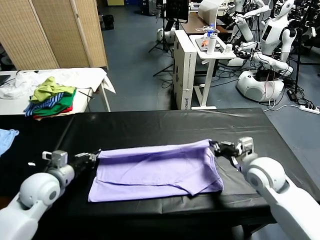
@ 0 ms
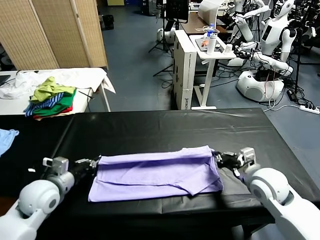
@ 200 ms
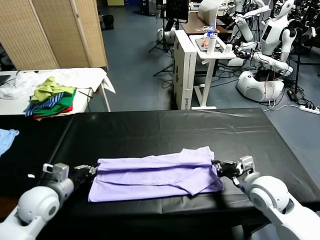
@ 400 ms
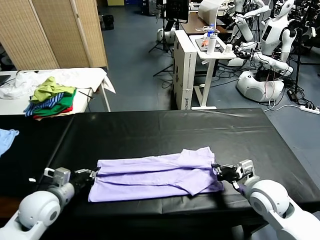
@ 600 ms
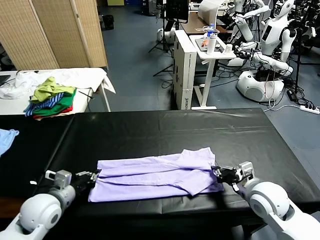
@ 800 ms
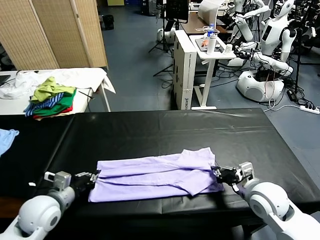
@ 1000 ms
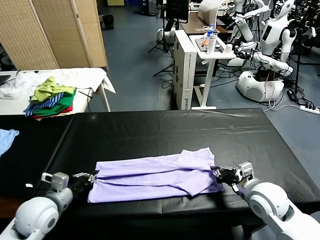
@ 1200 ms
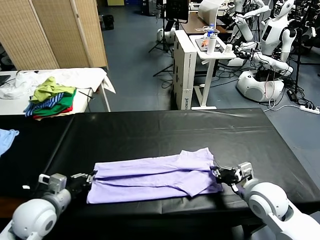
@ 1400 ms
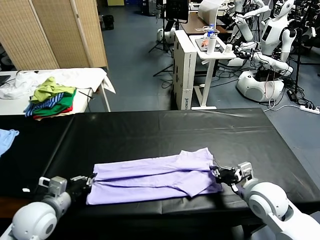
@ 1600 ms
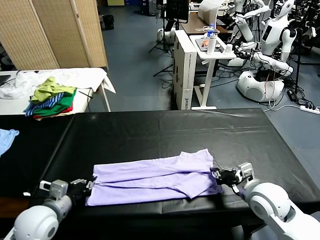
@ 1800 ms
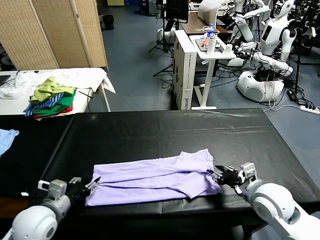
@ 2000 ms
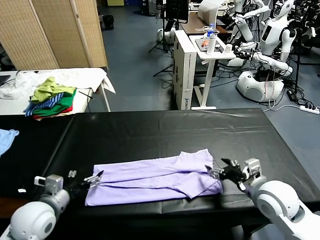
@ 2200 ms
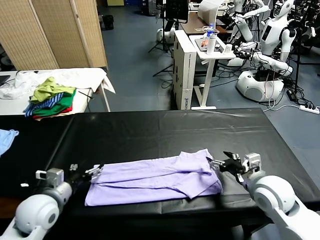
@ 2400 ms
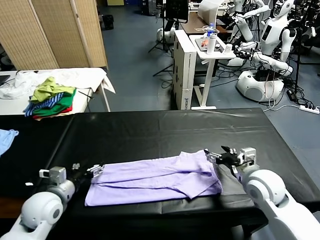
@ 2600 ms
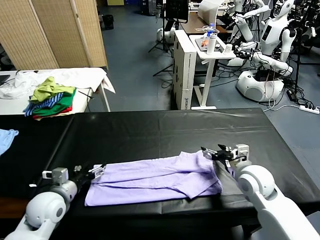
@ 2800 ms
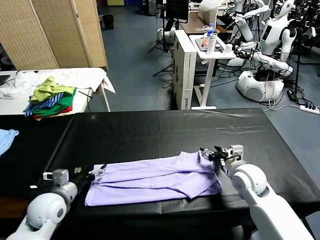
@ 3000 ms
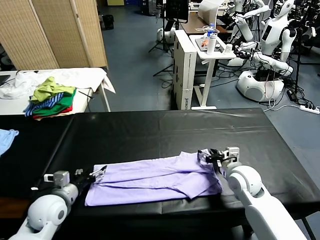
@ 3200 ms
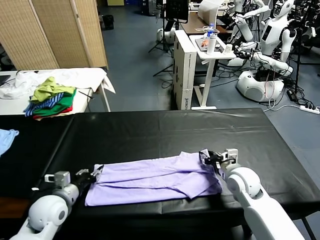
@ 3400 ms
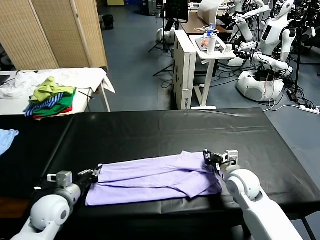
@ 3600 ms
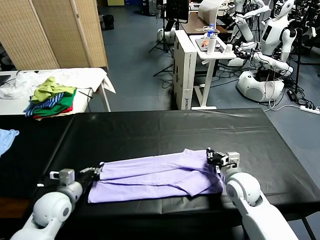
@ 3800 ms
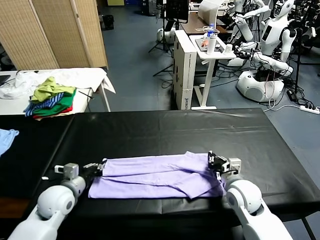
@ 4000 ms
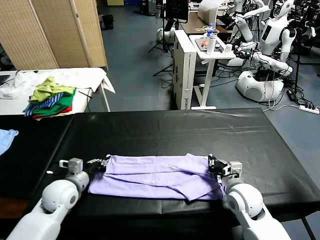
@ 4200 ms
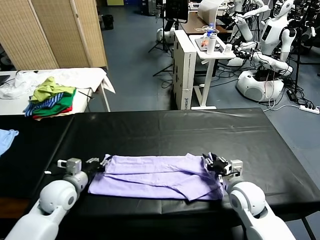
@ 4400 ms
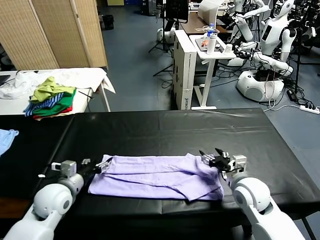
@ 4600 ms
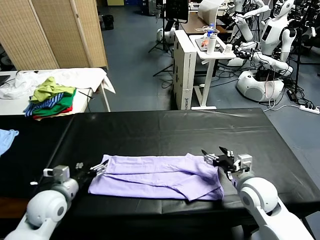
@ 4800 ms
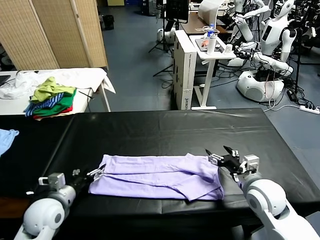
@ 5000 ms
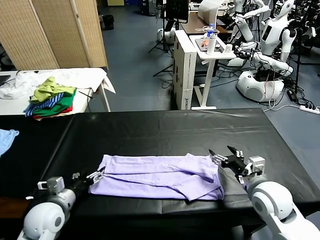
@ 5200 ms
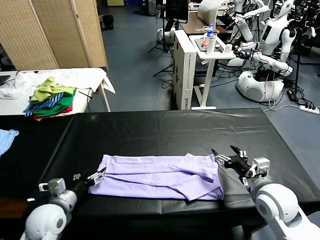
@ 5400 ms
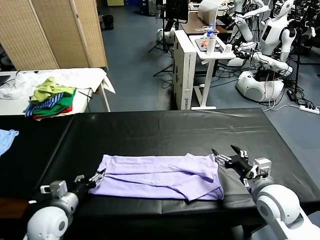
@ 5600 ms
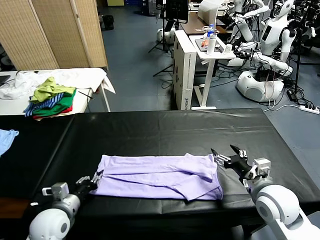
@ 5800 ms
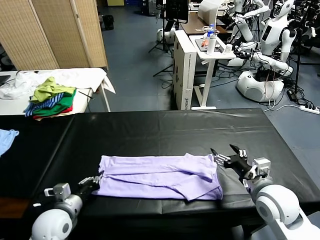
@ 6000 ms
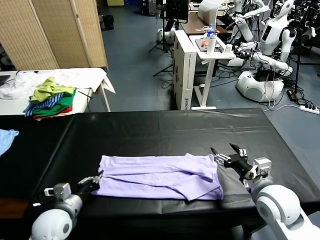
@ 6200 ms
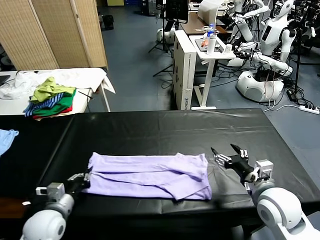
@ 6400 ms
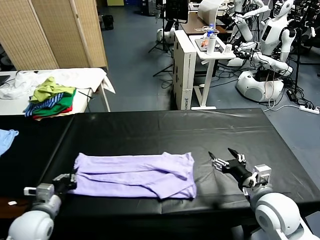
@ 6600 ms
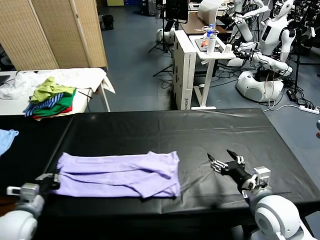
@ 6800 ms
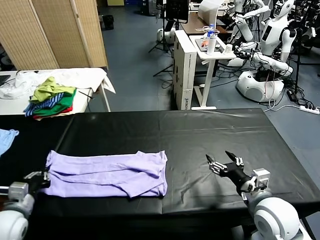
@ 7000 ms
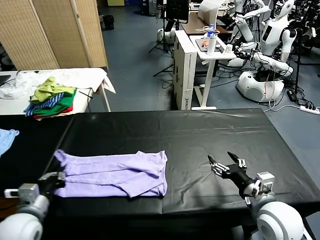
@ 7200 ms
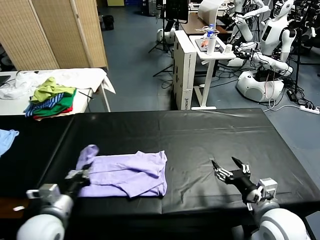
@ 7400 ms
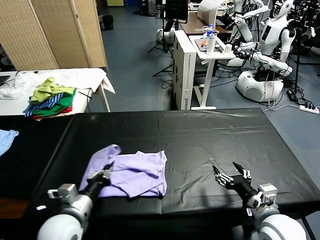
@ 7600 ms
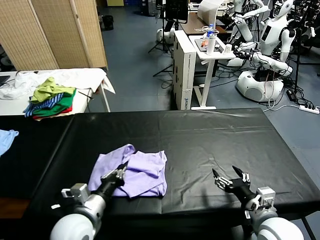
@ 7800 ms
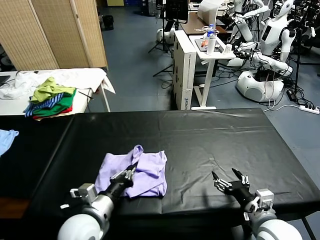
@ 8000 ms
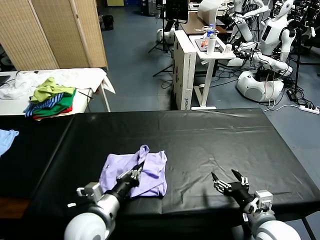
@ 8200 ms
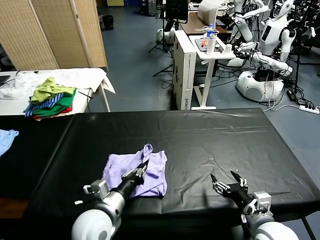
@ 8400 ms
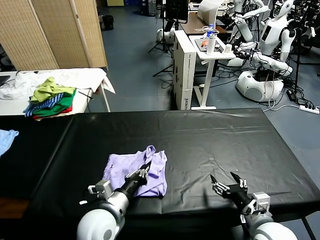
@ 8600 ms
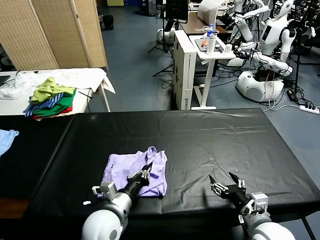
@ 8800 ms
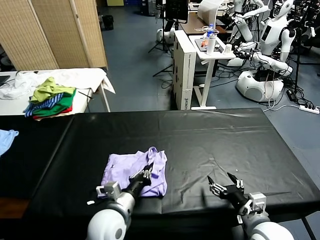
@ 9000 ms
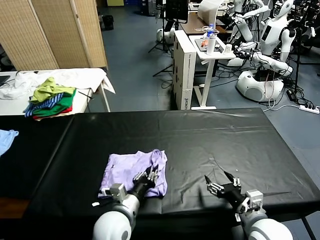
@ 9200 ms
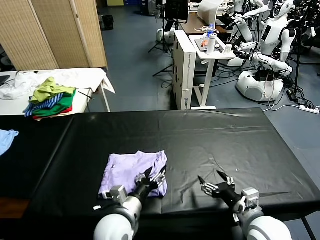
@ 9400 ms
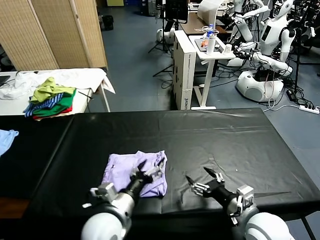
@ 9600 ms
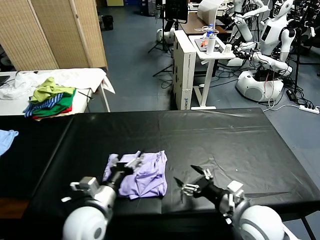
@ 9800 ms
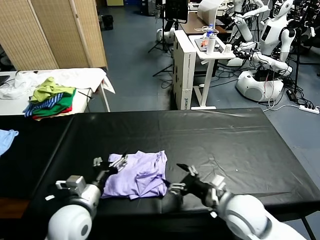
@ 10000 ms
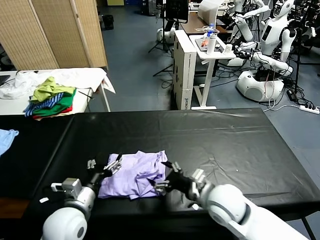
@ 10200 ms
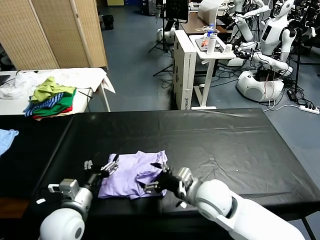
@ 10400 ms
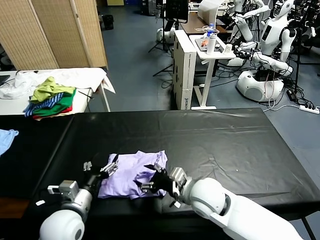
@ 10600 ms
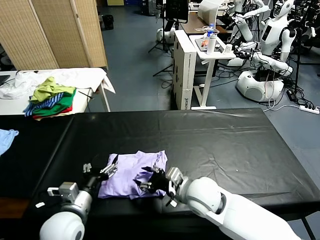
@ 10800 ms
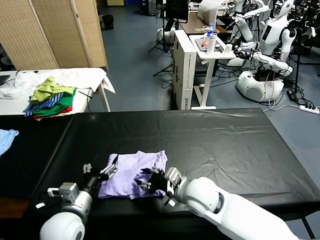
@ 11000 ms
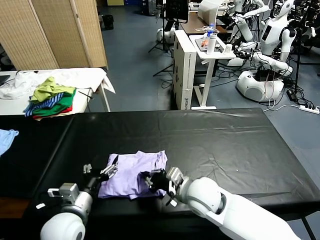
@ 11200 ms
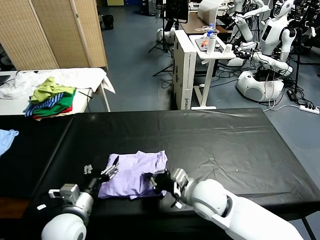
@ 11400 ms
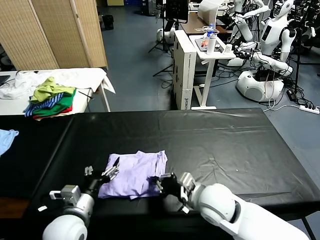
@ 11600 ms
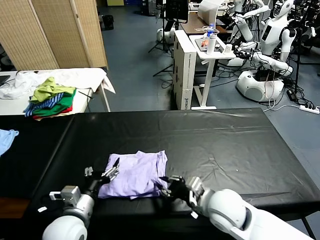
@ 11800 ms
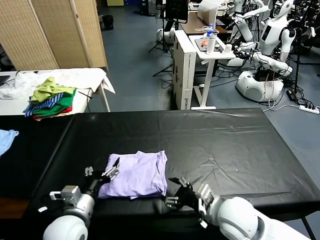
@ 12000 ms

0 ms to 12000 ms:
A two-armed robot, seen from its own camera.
Task of the whole recording: fold and organize the clothes.
Step, 0 ms to 2000 ms: use both grippers to drag the upper edge of the fabric backward and fold it over the lower edge.
Step, 2200 ms to 6000 ms: use the left gripper to clamp the left edge of the fabric.
Step, 6200 ms to 9400 ms: use the left gripper to drag the left edge of the fabric to the left and folds it over the right edge.
0 ms to 1600 ms: The left gripper heads backward, covering about 5 cm.
1600 ms to 3000 ms: The left gripper ends up about 5 cm from where it was, and opens its fingers. The right gripper is displaced forward by roughly 10 cm, and opens its fingers.
3000 ms to 4400 ms: The left gripper closes up; the right gripper closes, then reopens.
4400 ms to 6000 ms: The right gripper is displaced upward by approximately 5 cm. Meanwhile the left gripper shifts about 5 cm backward, and closes.
6000 ms to 7600 ms: The right gripper shifts roughly 5 cm backward. Meanwhile the left gripper moves to the right and upward, approximately 10 cm.
7600 ms to 9000 ms: The left gripper goes about 10 cm to the right.
9000 ms to 10400 ms: The left gripper goes some 10 cm to the left, and opens its fingers, while the right gripper shifts approximately 15 cm to the left and forward.
10400 ms to 12000 ms: The right gripper goes approximately 10 cm to the right and backward, and closes, then opens again.

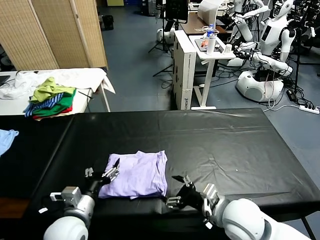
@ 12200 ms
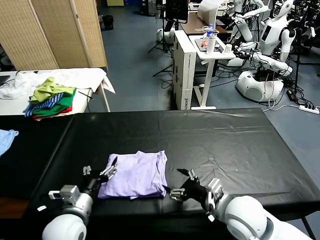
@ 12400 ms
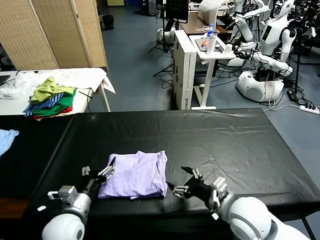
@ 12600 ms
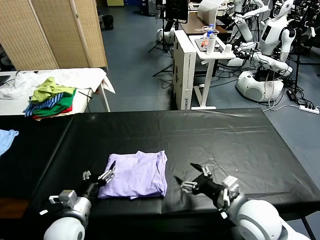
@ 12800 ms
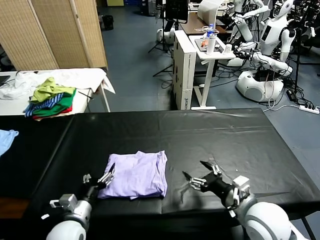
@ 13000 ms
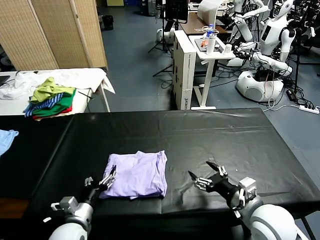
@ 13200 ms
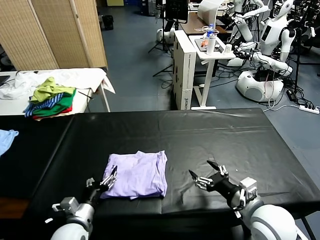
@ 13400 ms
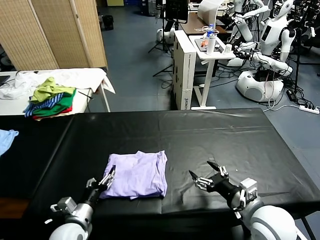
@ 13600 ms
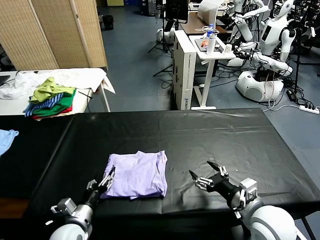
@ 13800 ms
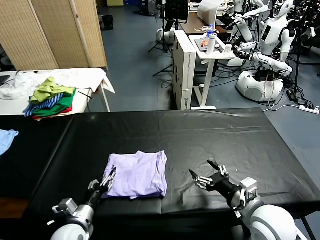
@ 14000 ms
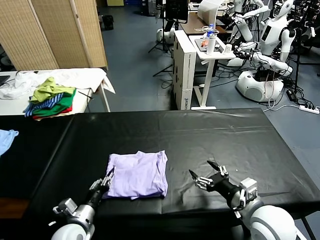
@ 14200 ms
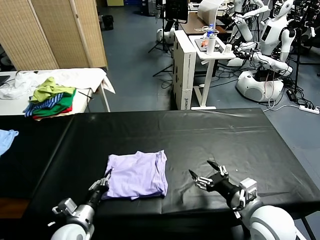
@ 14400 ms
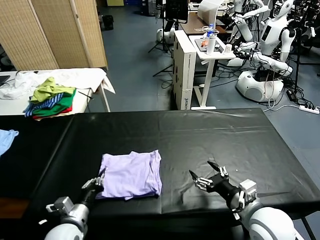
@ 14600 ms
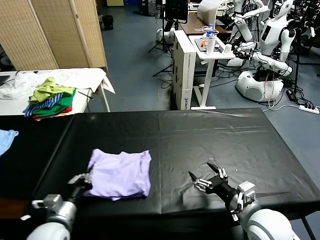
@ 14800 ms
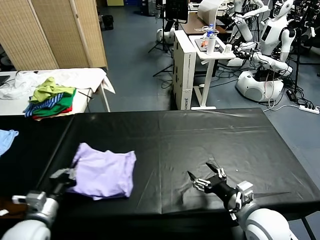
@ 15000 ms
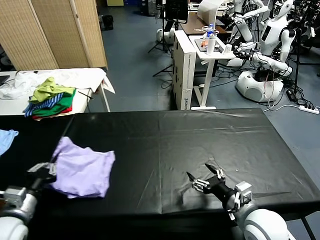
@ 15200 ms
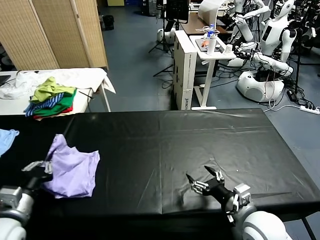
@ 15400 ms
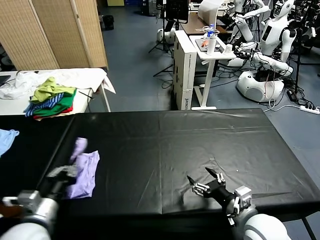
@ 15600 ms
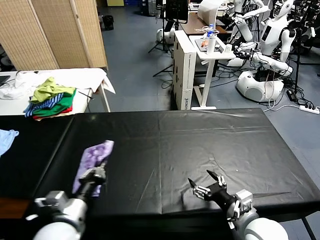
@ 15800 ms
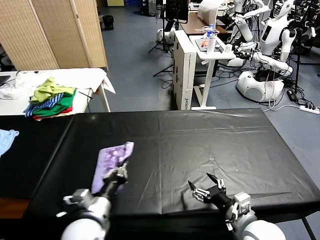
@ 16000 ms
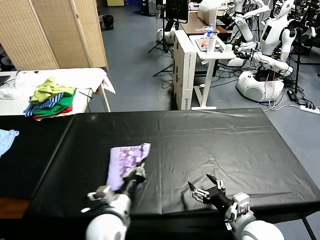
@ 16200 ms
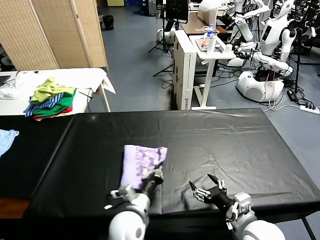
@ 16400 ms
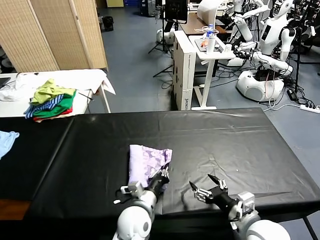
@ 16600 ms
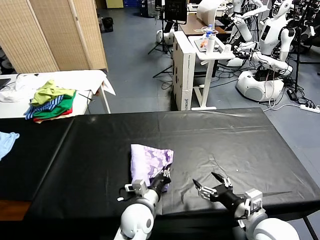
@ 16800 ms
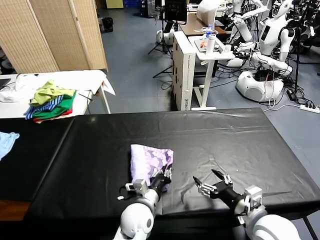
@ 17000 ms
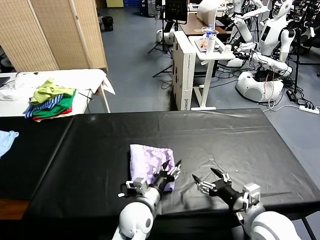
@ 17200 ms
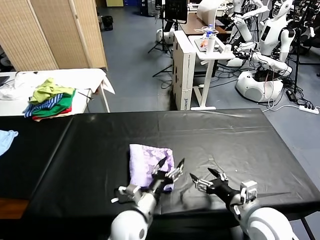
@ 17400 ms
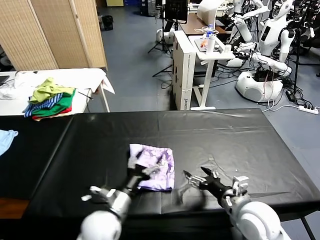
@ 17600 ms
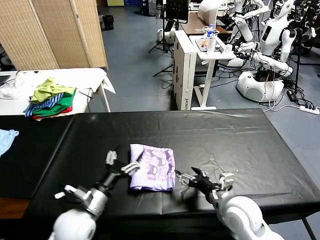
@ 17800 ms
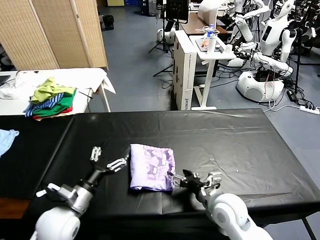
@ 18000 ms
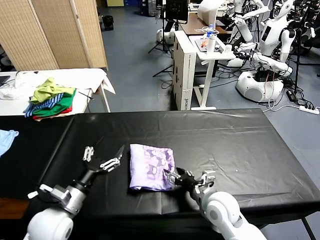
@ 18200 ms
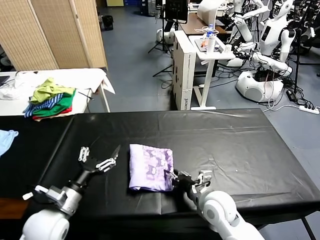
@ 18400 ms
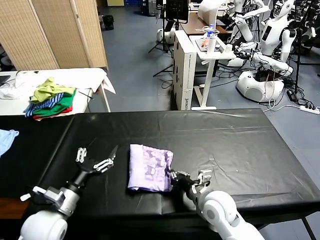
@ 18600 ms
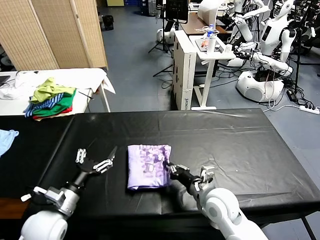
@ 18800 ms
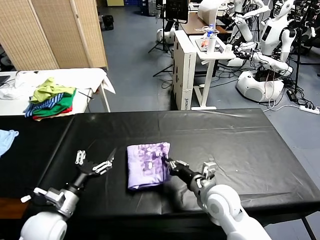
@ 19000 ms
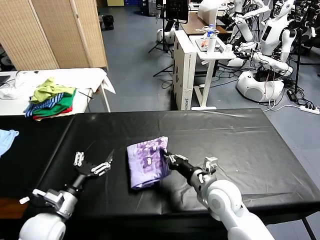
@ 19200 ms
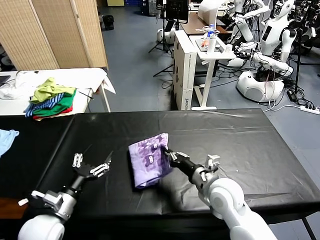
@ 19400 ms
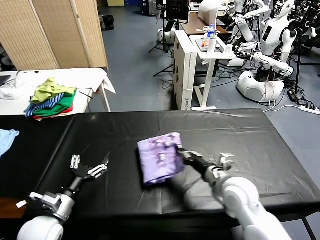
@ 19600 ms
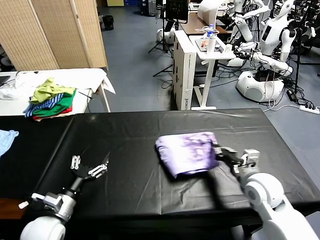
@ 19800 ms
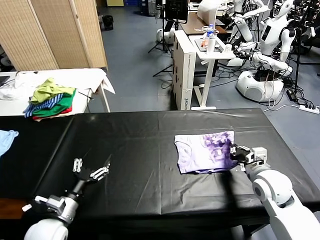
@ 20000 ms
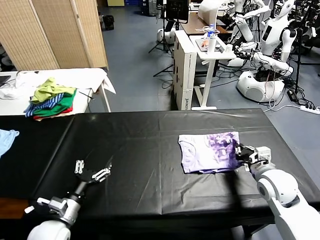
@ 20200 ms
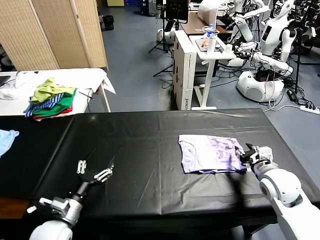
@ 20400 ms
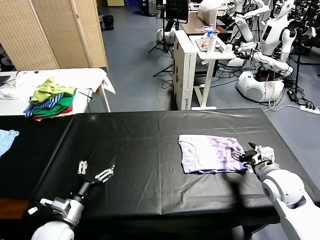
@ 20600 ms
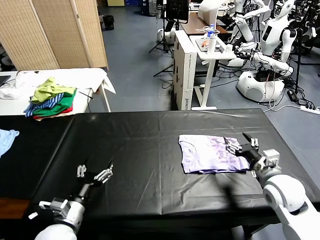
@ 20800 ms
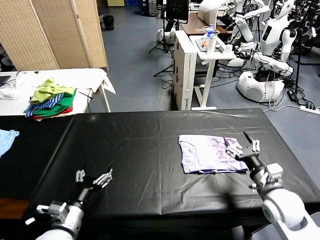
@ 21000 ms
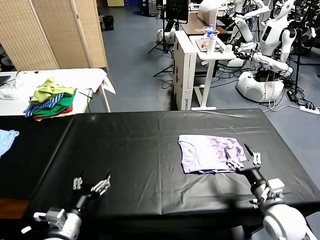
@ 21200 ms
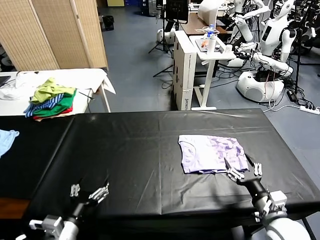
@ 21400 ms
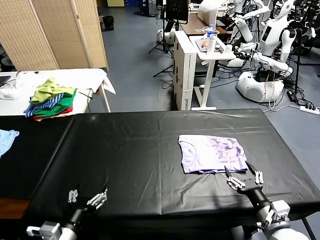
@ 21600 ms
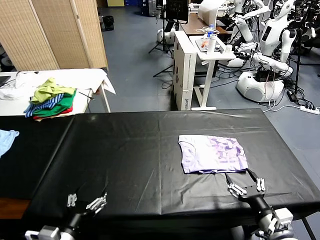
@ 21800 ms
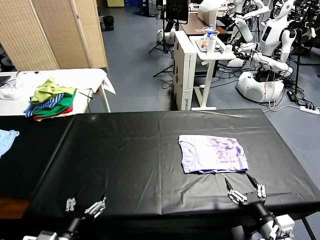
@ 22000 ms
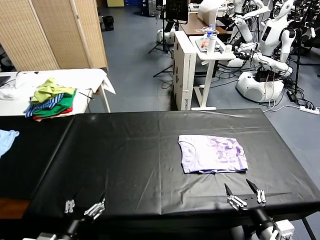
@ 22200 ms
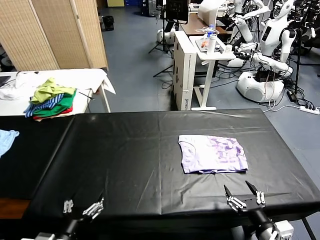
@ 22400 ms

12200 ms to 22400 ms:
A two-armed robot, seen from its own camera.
Task of the whole recording: fold and organize the clothes.
Step, 12200 ms to 17200 ms: Flip the folded clothes over with left gripper.
Step, 17400 ms to 20600 ms: Drag the clothes to the center of the table.
12200 ms to 13600 ms: The right gripper is displaced to the right by approximately 5 cm; the left gripper goes some 10 cm downward.
13600 ms to 15200 ms: The left gripper travels upward and to the left by about 15 cm, and closes up.
15200 ms to 16600 ms: The left gripper is displaced to the right by some 30 cm.
16600 ms to 18000 ms: The right gripper goes some 10 cm forward and to the left. Meanwhile the left gripper is displaced to the left by some 20 cm, and opens up.
18000 ms to 19400 ms: The right gripper ends up about 5 cm from where it was, and closes.
19400 ms to 21000 ms: The right gripper is displaced to the right by some 15 cm, and opens up.
21000 ms to 22400 ms: The left gripper goes roughly 10 cm backward, while the right gripper shifts about 15 cm backward.
